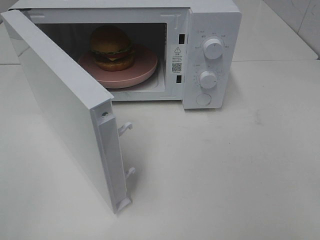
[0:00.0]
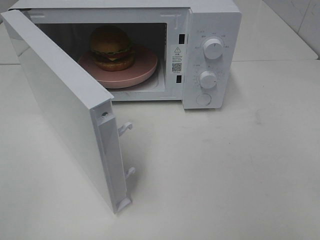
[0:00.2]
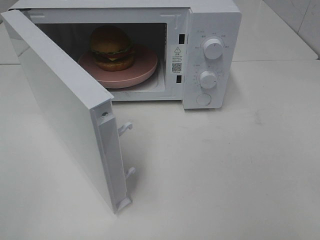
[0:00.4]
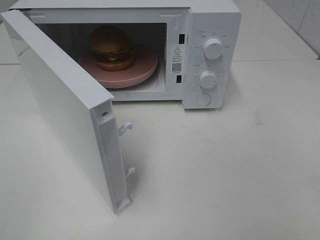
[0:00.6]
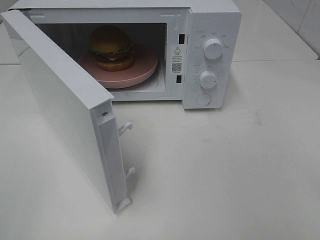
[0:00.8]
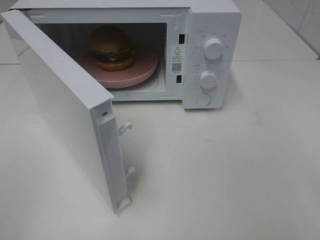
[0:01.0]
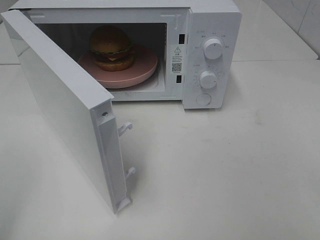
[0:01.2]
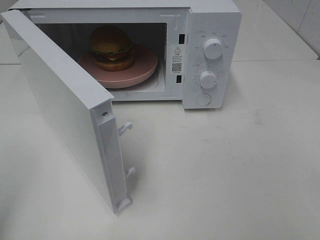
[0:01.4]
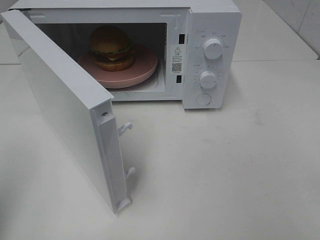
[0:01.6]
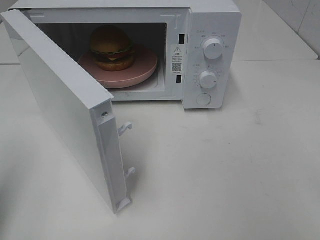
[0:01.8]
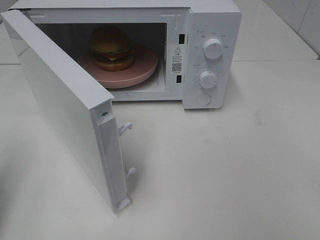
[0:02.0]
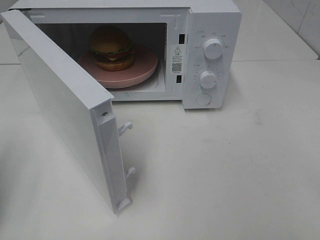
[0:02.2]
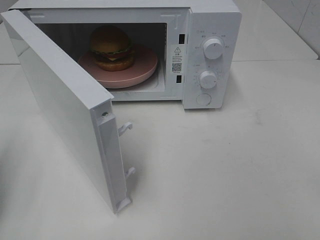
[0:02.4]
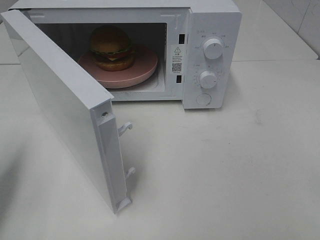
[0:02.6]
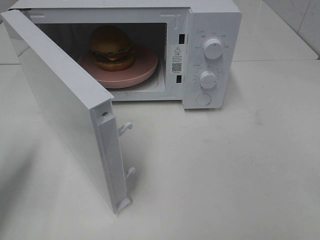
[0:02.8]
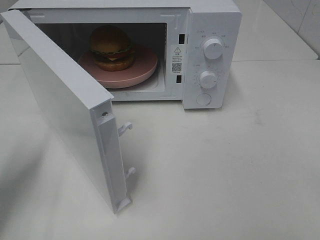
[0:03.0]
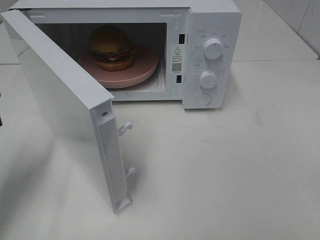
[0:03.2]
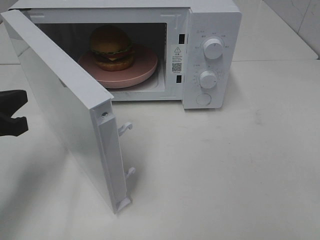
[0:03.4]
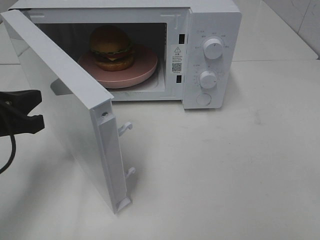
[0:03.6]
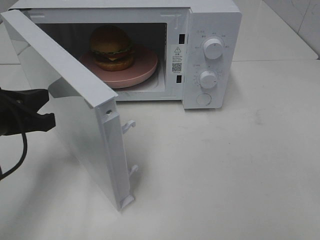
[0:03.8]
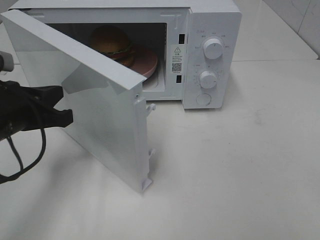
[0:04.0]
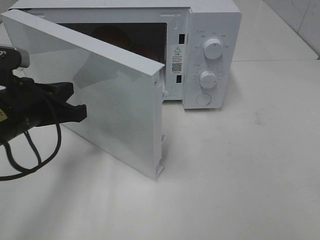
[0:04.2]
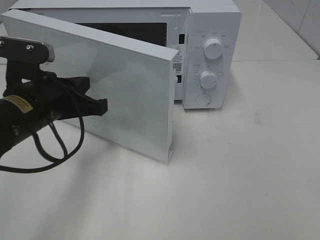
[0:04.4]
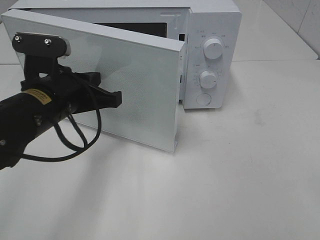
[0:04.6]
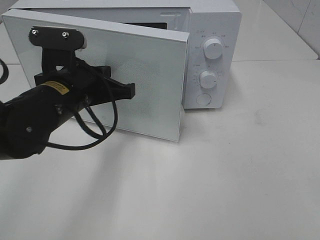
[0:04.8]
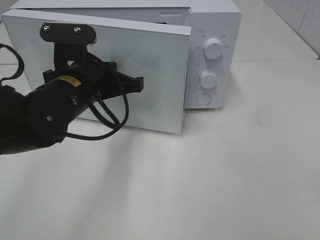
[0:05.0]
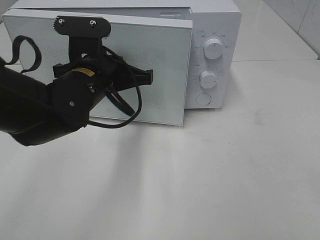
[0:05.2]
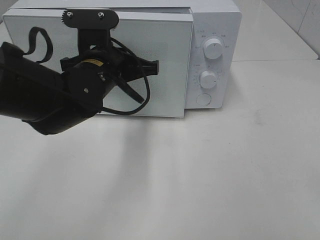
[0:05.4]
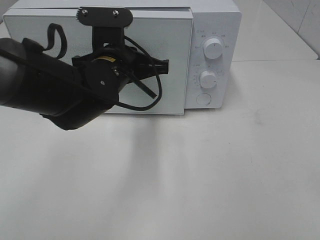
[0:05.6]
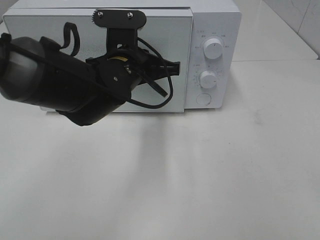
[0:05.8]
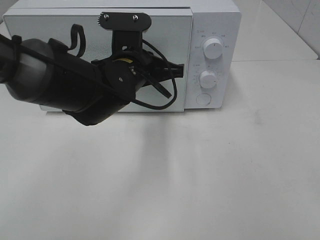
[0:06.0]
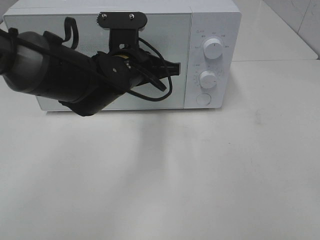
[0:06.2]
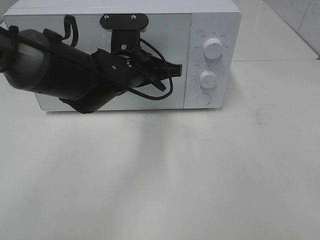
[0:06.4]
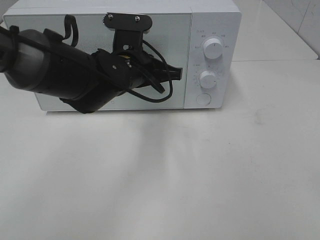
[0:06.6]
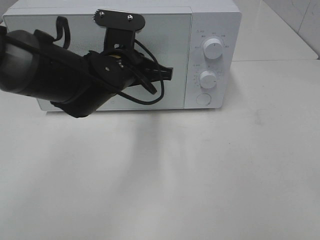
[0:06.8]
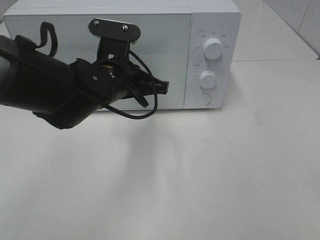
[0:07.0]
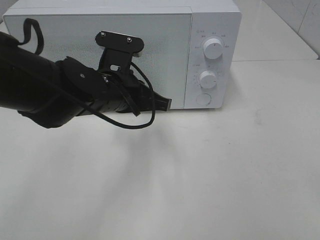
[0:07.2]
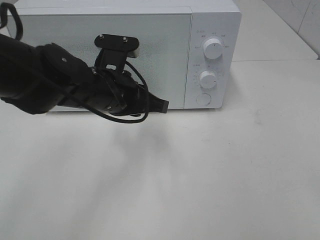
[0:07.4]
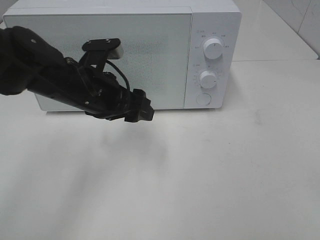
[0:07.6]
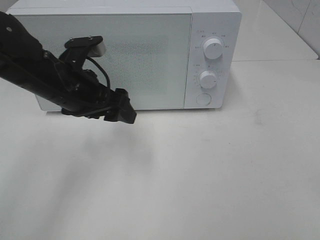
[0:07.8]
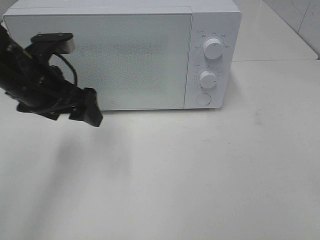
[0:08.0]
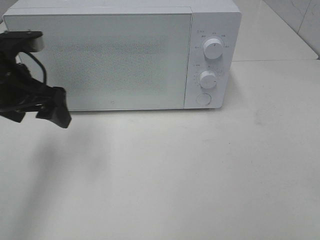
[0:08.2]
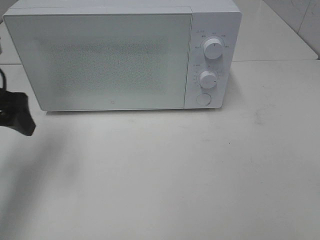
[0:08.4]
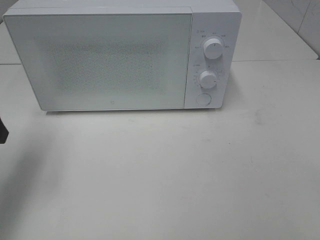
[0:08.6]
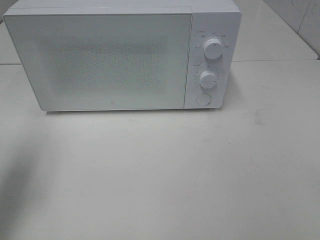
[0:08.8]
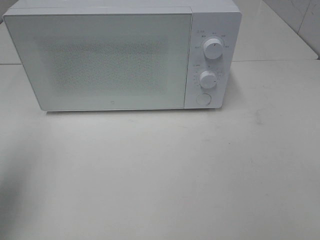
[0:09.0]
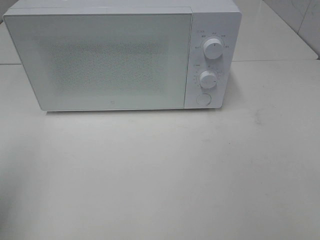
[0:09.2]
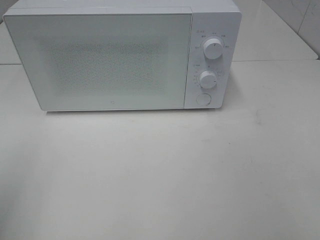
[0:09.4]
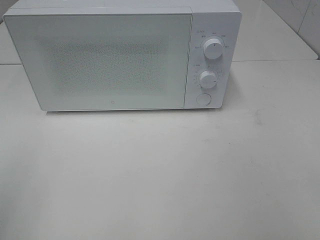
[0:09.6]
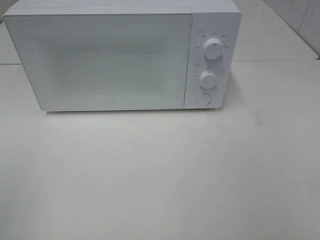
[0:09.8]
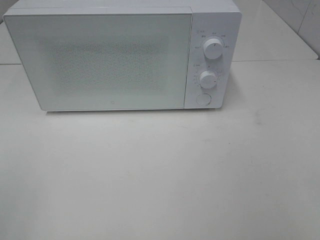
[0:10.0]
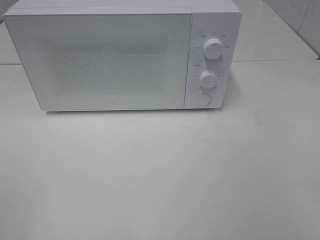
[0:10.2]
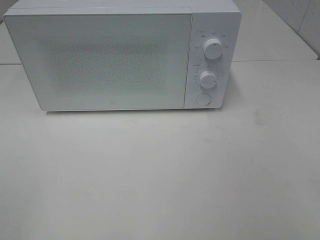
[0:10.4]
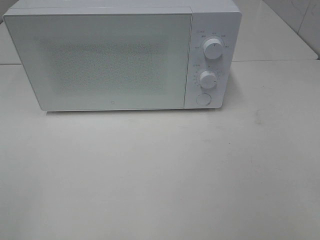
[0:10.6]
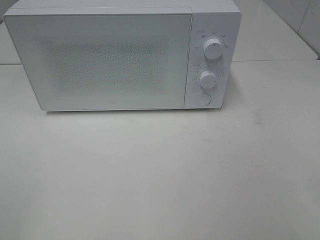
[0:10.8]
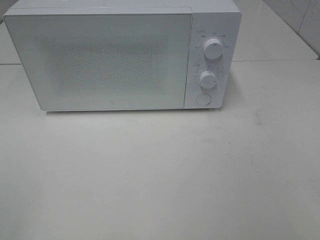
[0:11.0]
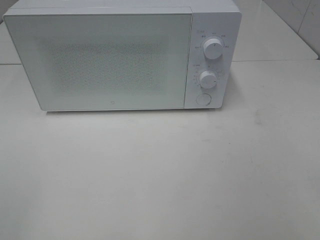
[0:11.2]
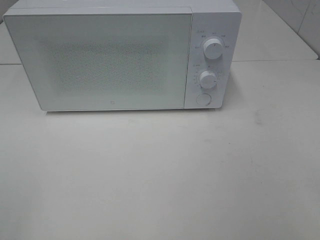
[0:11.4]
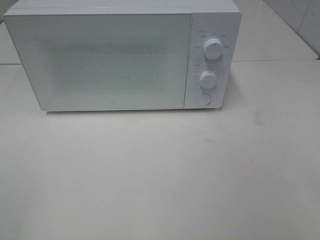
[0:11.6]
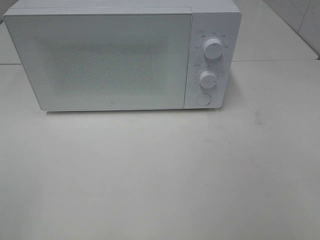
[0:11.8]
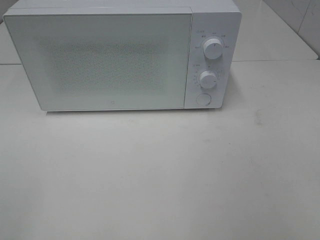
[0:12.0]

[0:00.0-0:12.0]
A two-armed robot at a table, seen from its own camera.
Task of the whole recording: Heat the burger.
Step, 0:00.0 to 0:06.8: Left hand: close the microwave door.
0:01.6 to 0:03.0: The left gripper travels forward and downward by about 15 cm.
0:03.0 to 0:04.4: The left gripper travels to the right by approximately 15 cm.
0:04.4 to 0:06.0: The left gripper is displaced to the right and forward by about 15 cm.
0:06.0 to 0:07.6: The left gripper is displaced to the left by roughly 5 cm, and opens.
0:07.6 to 0:09.0: The left gripper travels to the left and backward by some 25 cm.
0:09.0 to 0:10.4: The left gripper moves backward, approximately 15 cm.

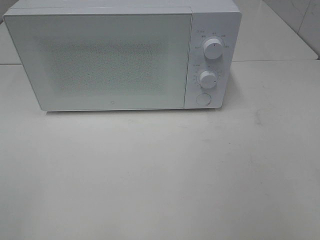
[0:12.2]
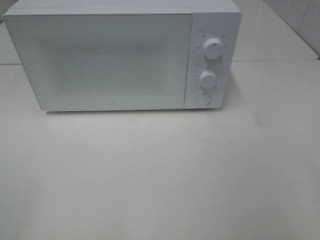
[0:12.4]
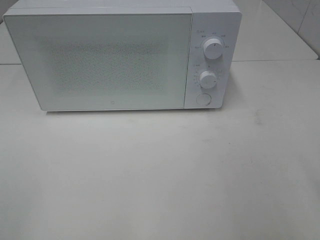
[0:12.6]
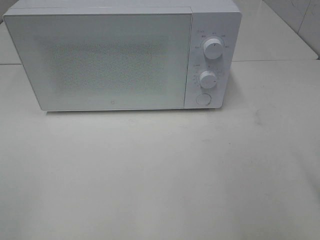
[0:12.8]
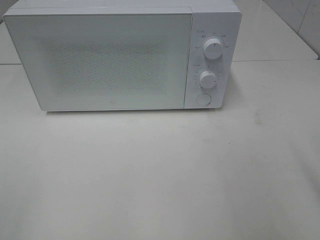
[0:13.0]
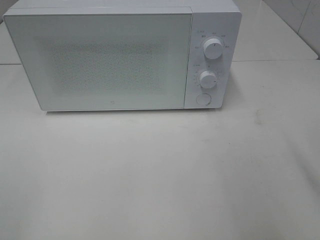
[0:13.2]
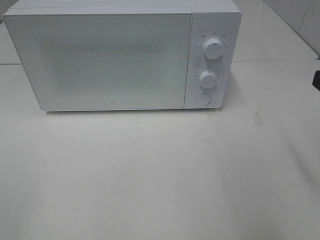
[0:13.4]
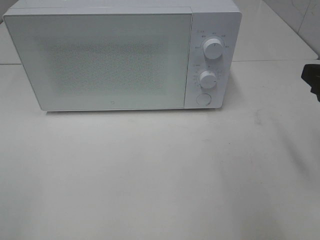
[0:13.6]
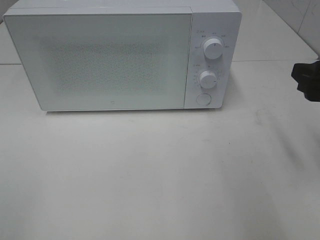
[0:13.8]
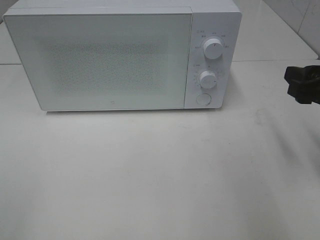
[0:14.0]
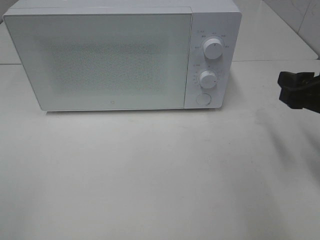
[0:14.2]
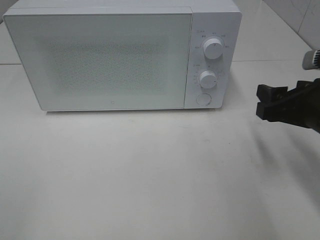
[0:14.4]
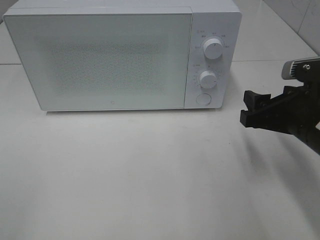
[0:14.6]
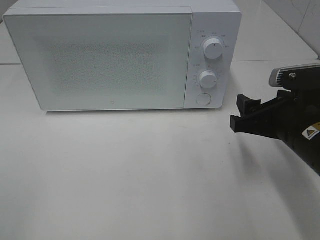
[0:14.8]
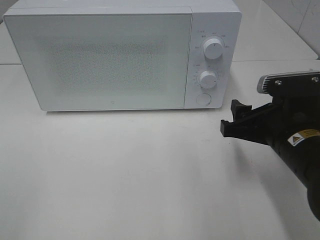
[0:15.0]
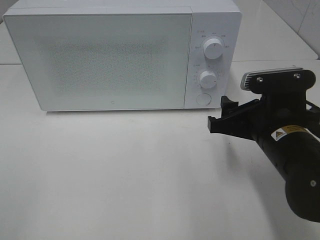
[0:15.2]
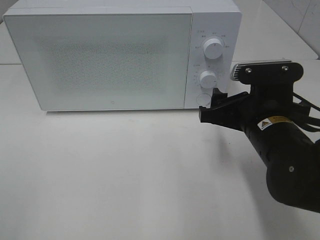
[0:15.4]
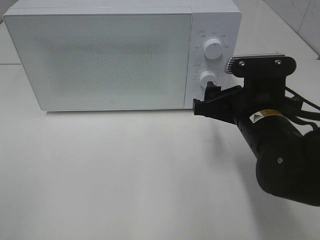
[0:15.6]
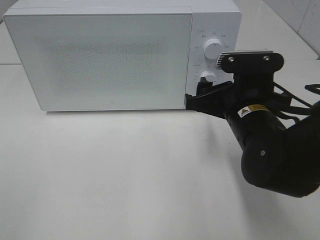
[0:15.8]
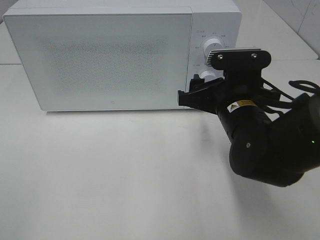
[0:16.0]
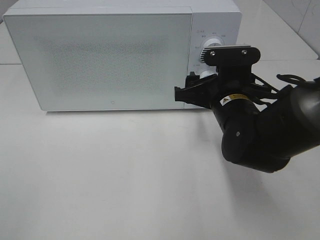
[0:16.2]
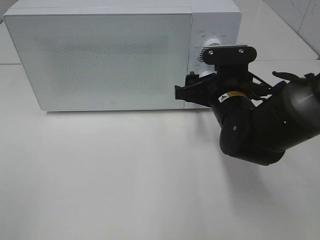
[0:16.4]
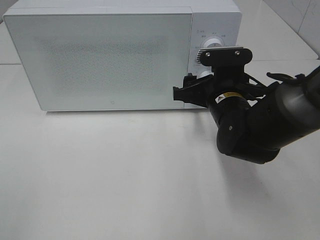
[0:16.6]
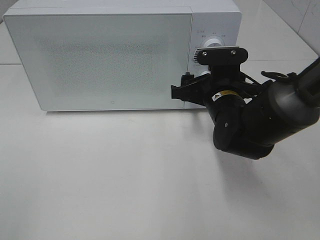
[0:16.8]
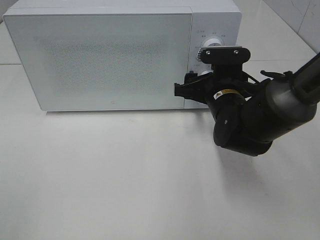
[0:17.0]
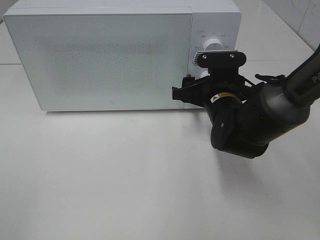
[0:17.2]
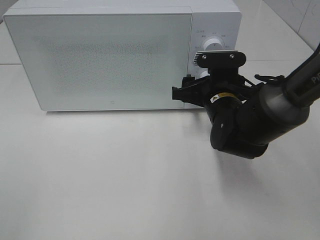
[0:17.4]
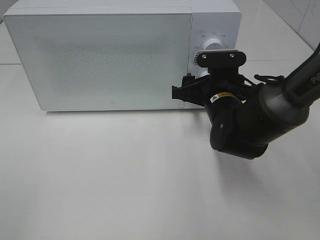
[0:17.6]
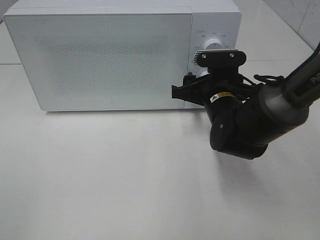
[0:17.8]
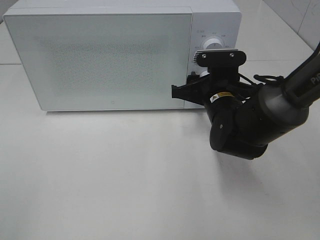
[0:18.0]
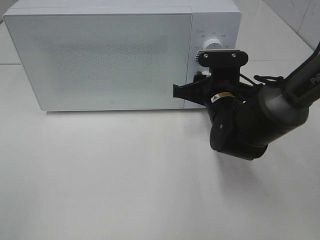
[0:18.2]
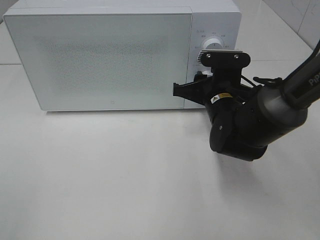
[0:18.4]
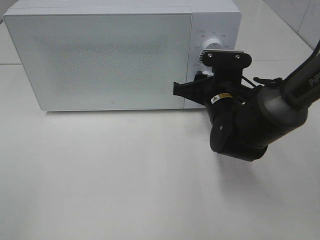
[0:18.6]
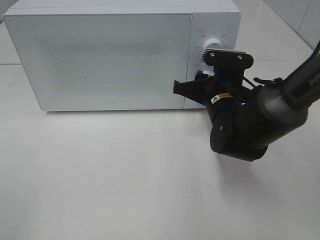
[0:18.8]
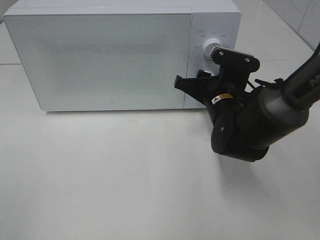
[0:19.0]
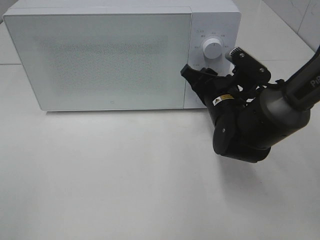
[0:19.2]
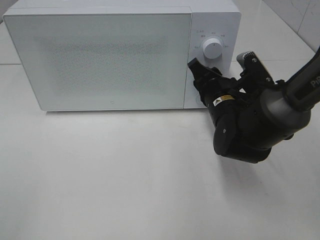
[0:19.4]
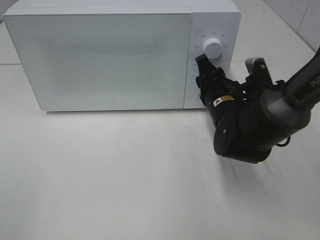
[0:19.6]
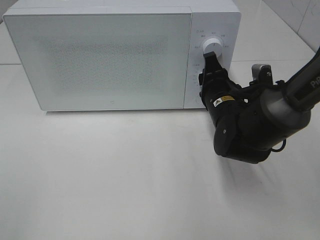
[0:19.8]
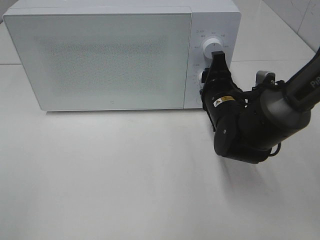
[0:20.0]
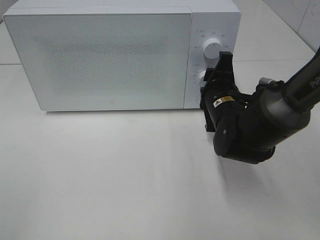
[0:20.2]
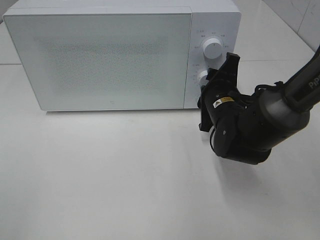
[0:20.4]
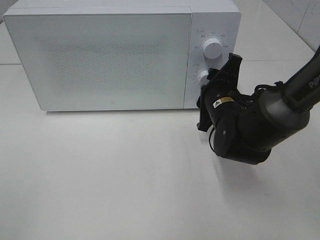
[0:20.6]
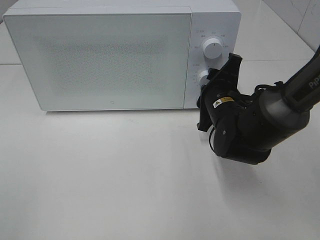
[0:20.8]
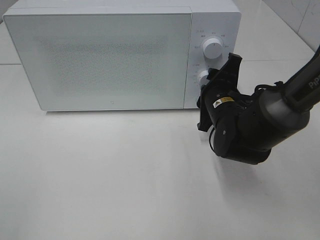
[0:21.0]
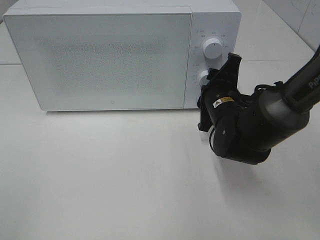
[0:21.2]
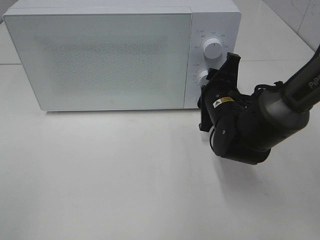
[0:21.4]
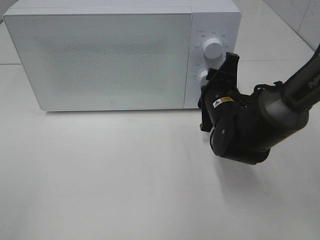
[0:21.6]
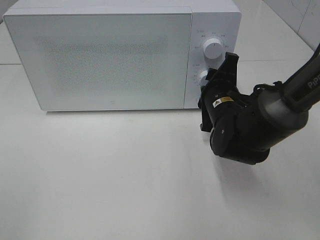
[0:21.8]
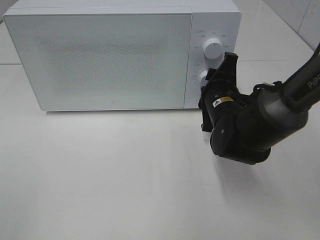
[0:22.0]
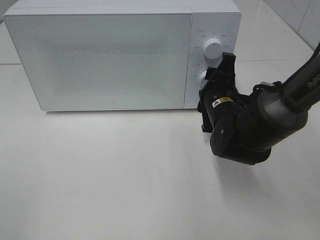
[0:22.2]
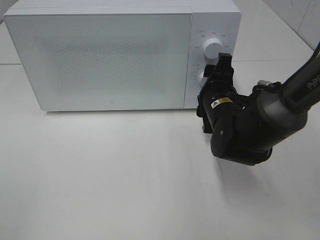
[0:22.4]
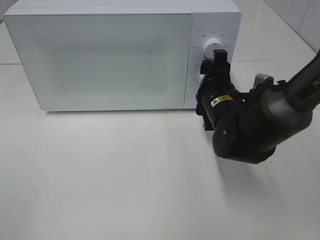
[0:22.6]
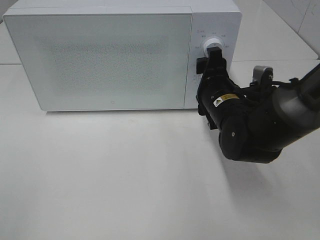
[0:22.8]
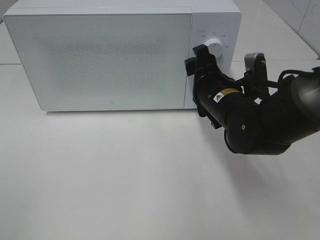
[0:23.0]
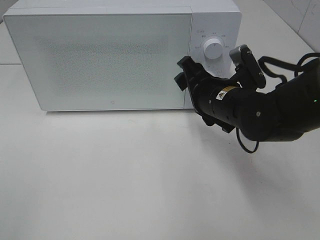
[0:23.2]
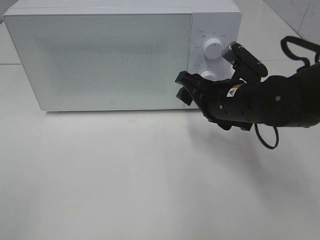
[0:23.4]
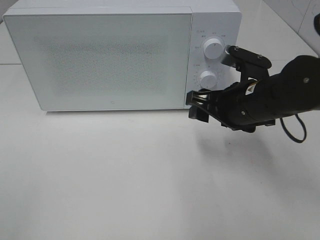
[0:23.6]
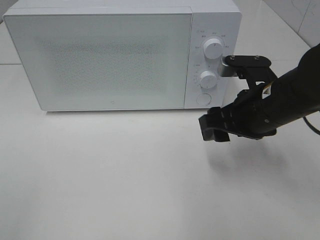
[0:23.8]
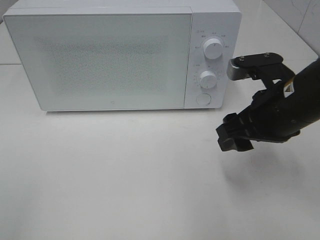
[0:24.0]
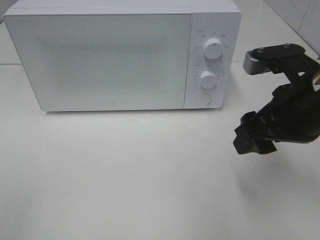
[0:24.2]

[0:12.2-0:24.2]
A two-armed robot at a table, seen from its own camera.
Task of the whole recording: Heat the burger.
Step, 0:12.2 to 0:22.4: Right hand: twist timer button.
0:12.2 to 0:13.8: The right gripper travels forward by approximately 15 cm.
0:13.8 to 0:15.2: The right gripper moves to the left and downward, roughly 15 cm.
0:15.2 to 0:16.6: The right gripper travels forward by roughly 10 cm.
0:16.6 to 0:18.2: The right gripper closes its fingers.
0:21.2 to 0:22.6: The grippers make only small movements.
0:22.6 to 0:24.2: The right gripper travels upward, backward and to the right by about 15 cm.
